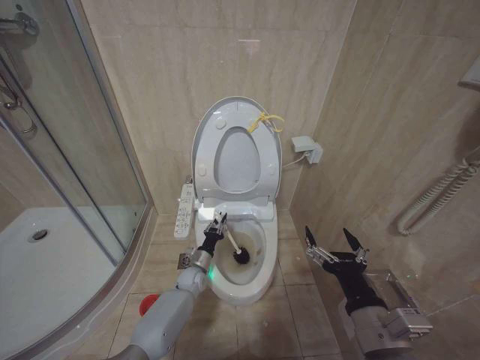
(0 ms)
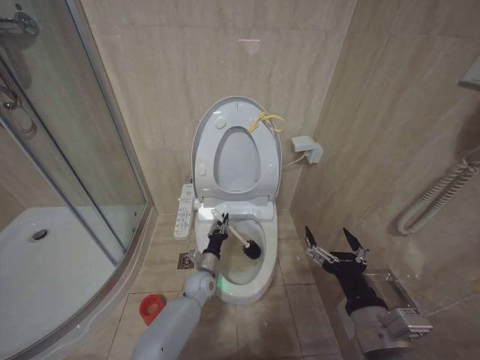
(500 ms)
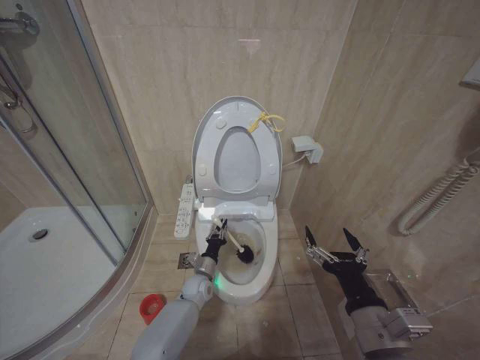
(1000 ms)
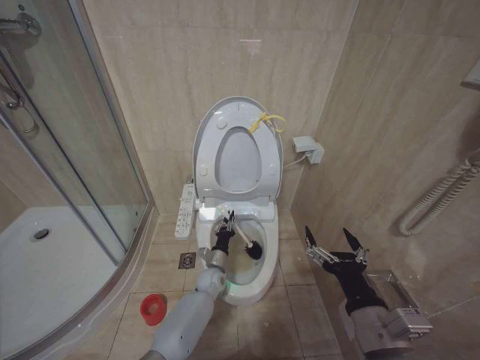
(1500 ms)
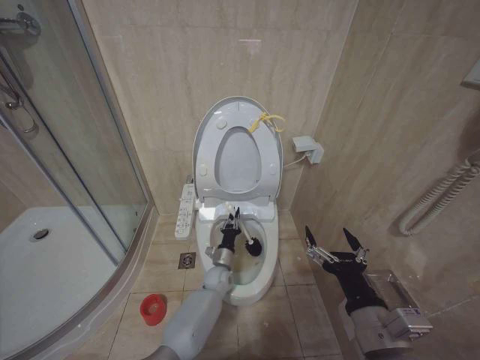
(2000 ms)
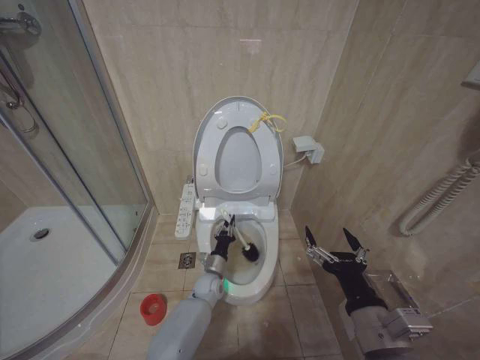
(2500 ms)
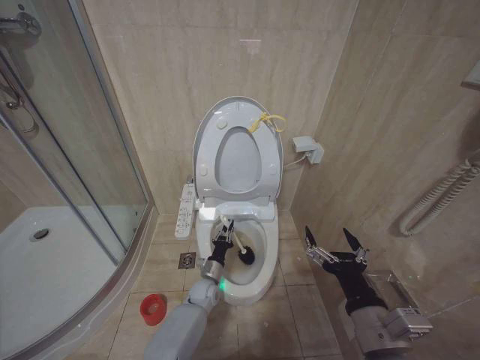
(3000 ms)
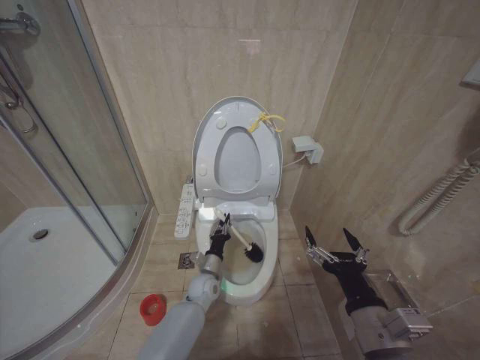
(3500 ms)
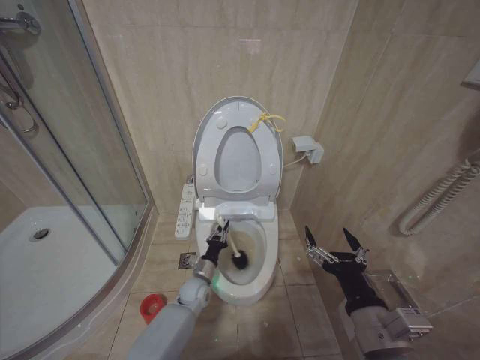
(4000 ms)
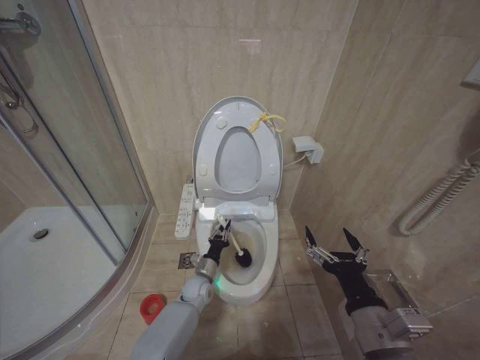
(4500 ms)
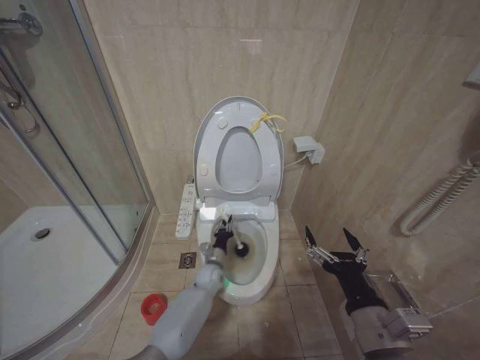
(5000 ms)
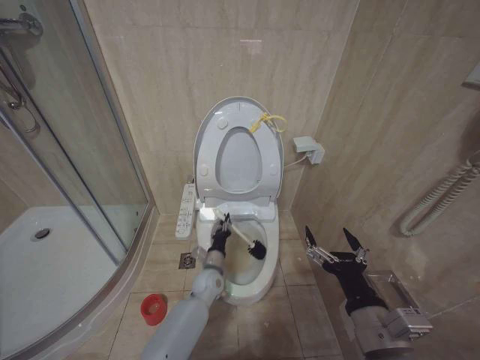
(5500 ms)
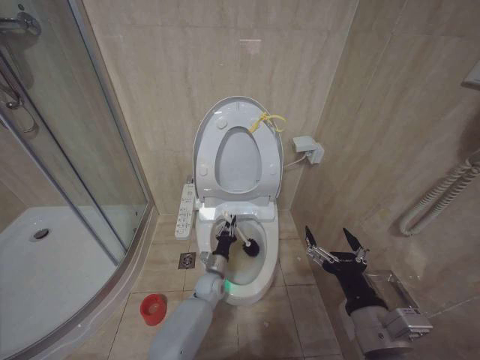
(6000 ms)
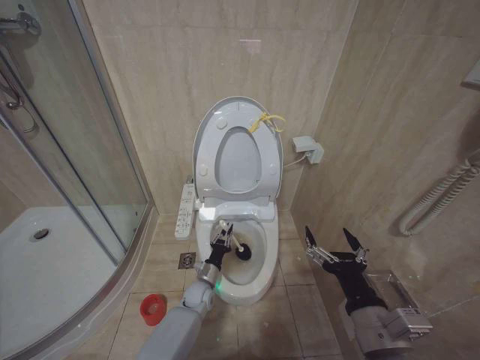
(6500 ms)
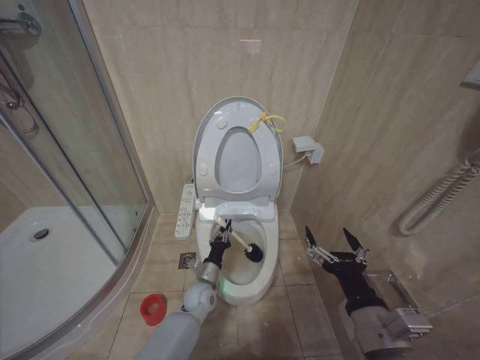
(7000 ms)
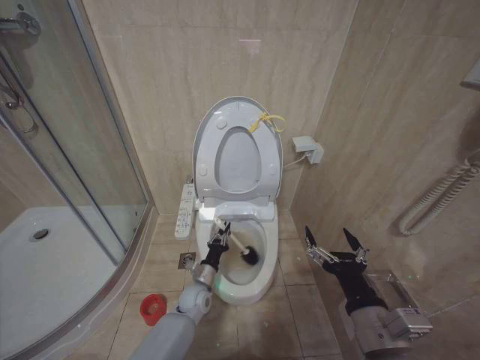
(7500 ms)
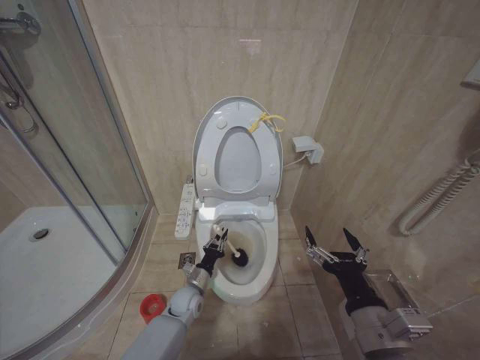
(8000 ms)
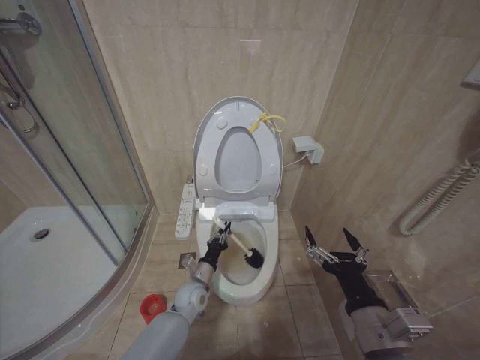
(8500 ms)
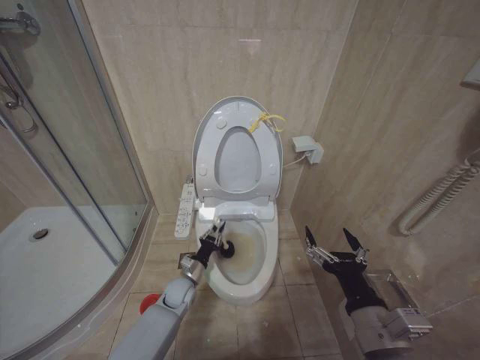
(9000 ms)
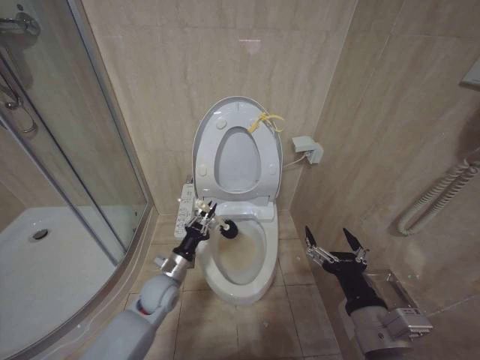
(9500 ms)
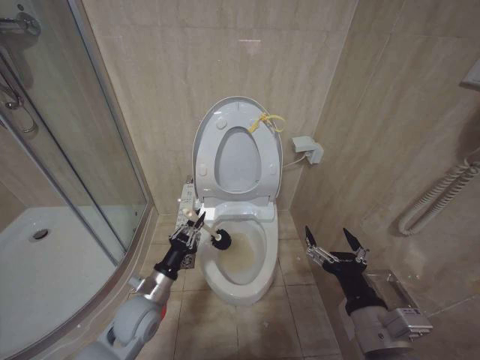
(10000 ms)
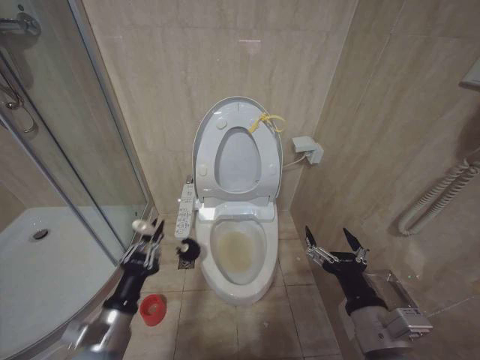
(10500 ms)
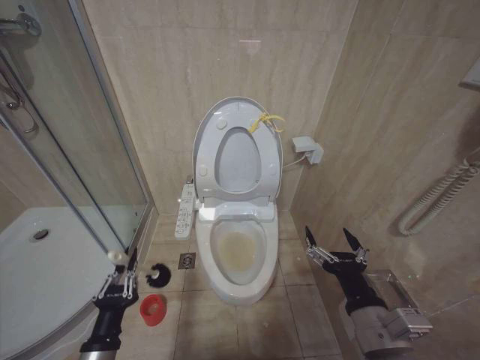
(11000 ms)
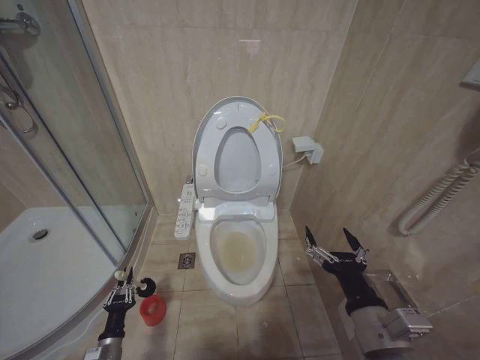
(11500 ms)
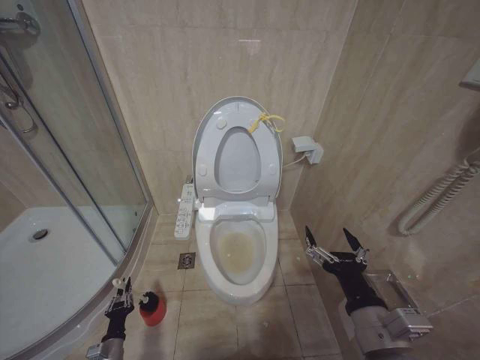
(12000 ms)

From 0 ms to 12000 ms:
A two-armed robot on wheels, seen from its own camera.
Task of the whole recording: Open the toilet lid, clean the toilet bowl with a toilet brush, close the toilet lid, and flush.
From 0 ms to 2000 ms: The left gripper heads to the right, covering about 10 cm.
From 2000 ms to 4000 ms: The left gripper moves to the left, some 5 cm.
From 4000 ms to 6000 ms: The left gripper goes upward and returns, about 5 cm each way.
From 6000 ms to 8000 ms: The left gripper changes place by roughly 5 cm.
From 8000 ms to 10000 ms: The left gripper travels upward, to the left and backward by approximately 20 cm.
From 10000 ms to 12000 ms: The left gripper heads downward and to the left, covering approximately 30 cm.

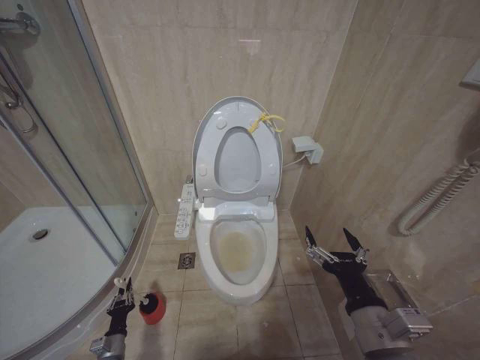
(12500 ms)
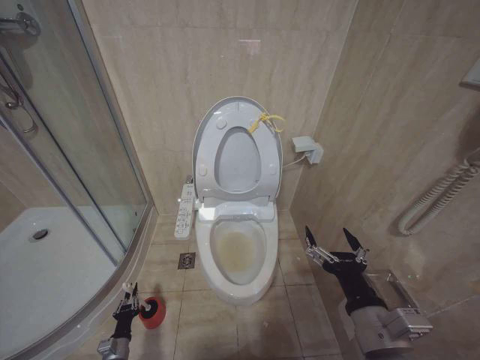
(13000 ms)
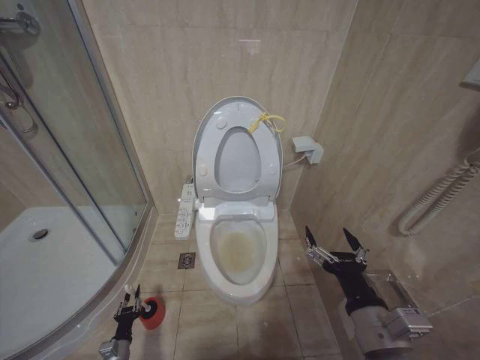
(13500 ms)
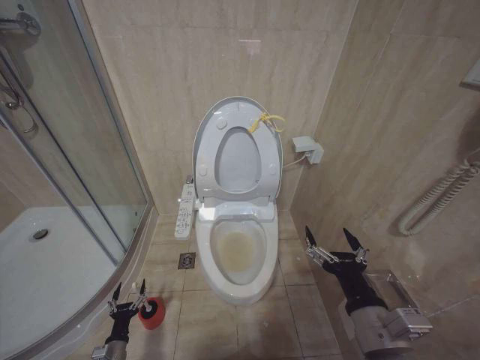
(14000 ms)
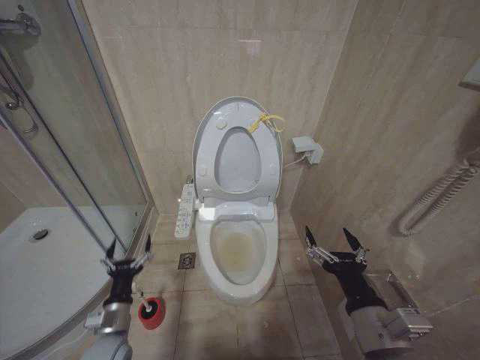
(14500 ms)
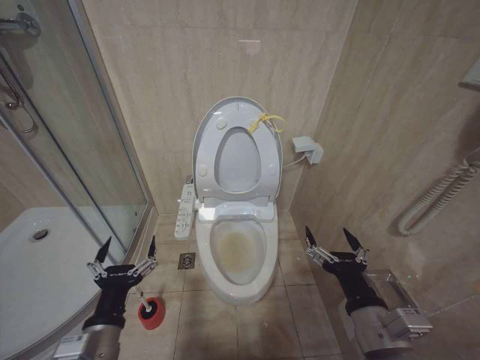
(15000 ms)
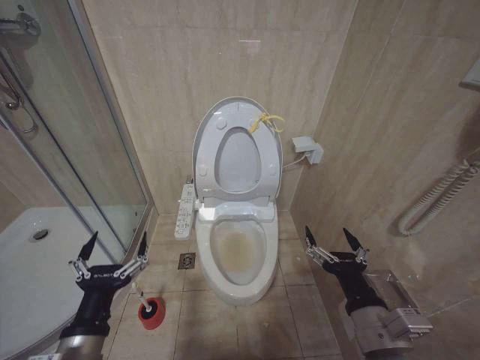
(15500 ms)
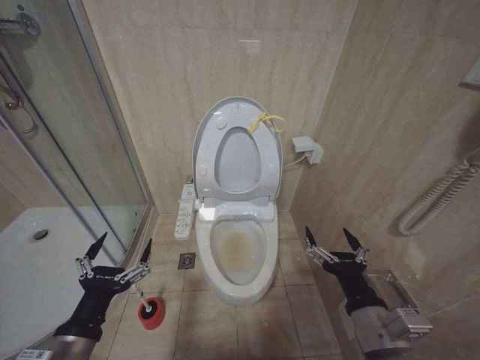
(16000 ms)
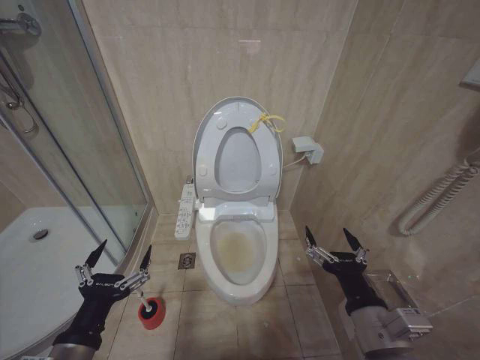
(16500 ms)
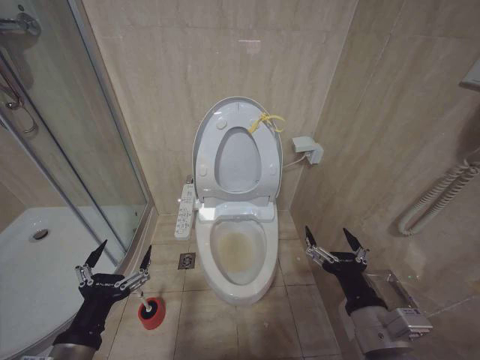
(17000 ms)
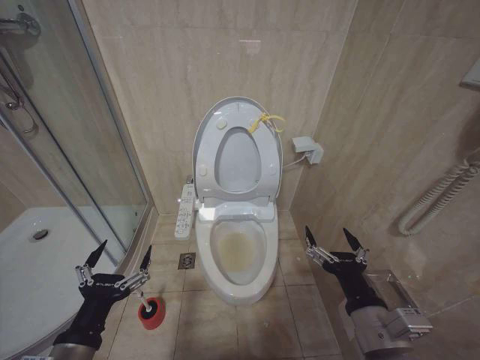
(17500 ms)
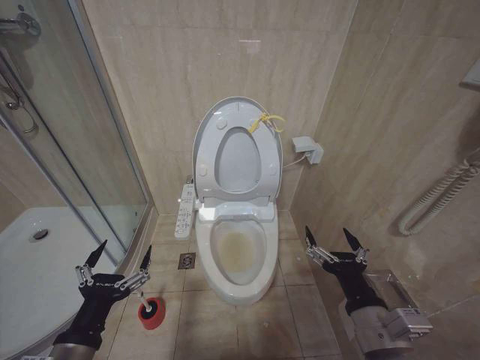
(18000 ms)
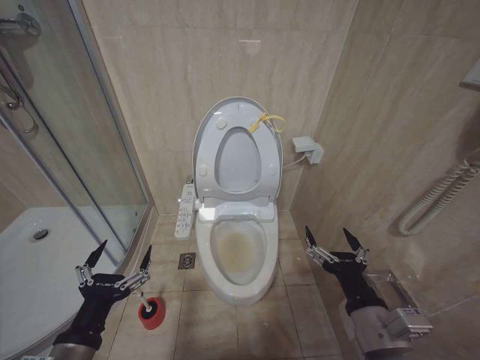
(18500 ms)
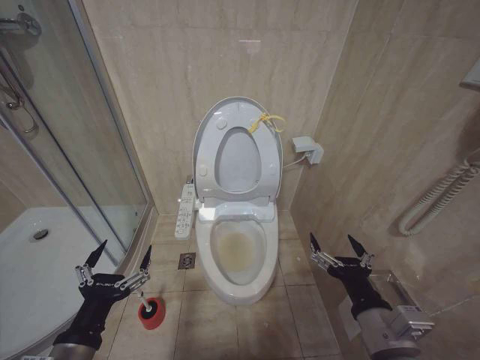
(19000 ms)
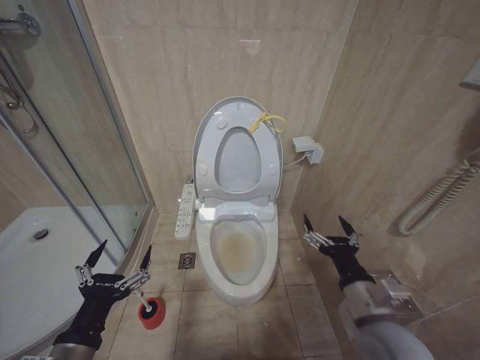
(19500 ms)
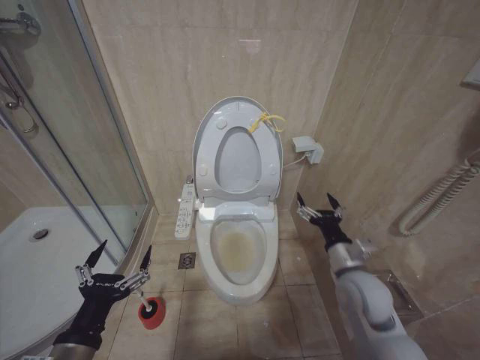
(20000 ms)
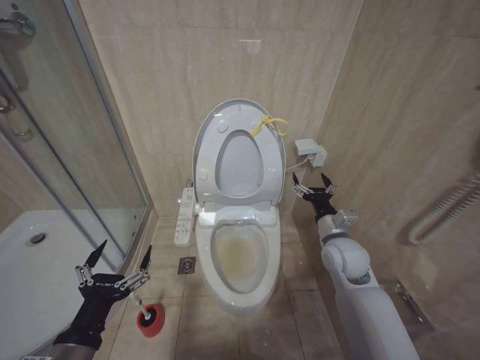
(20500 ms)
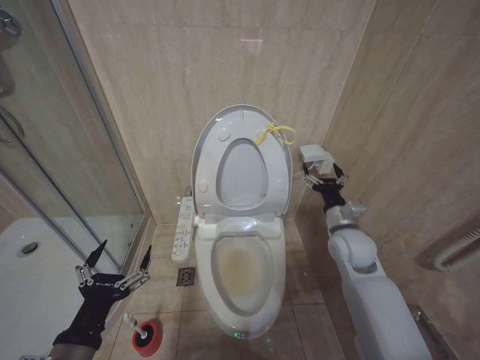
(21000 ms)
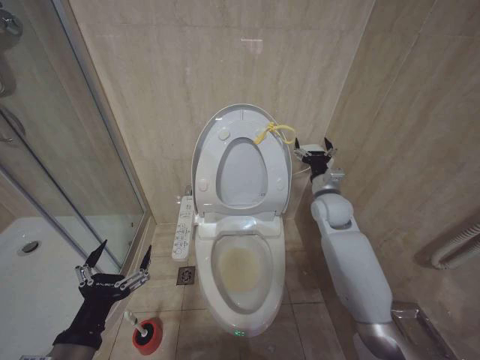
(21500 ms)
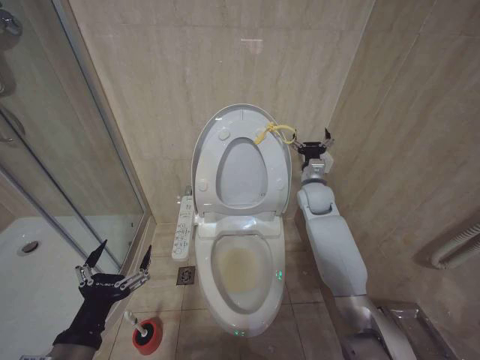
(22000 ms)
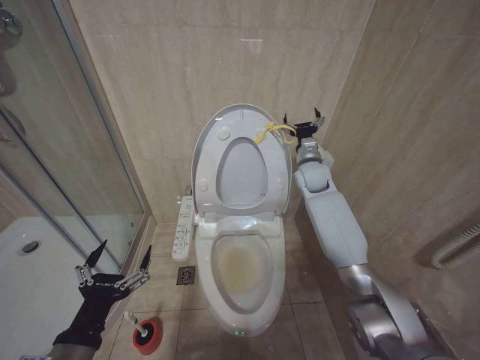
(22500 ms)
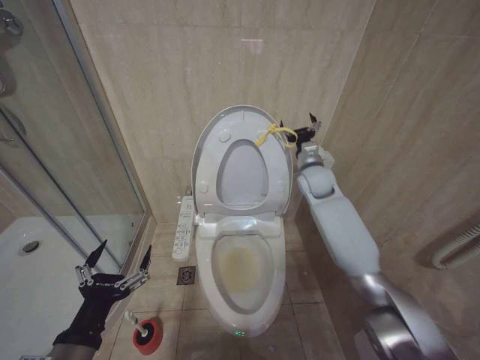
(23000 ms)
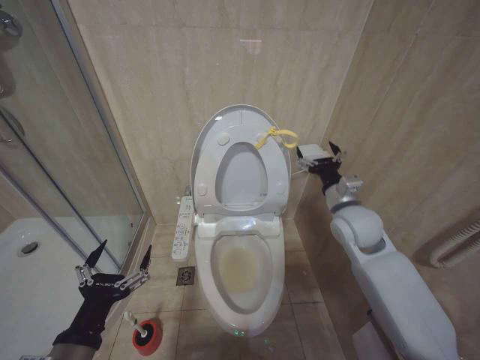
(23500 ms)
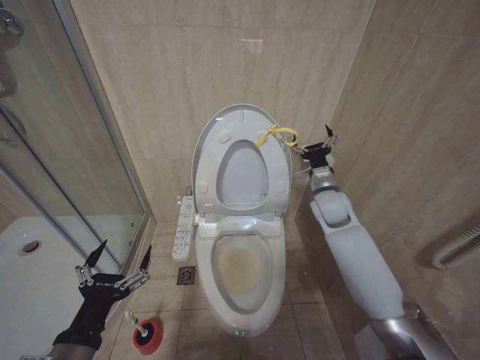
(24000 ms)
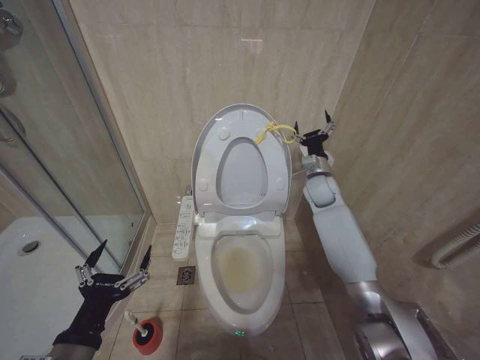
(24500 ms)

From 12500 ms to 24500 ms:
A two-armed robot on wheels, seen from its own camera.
Task of the whole recording: Open the toilet lid, clean the toilet bowl with a toilet brush, close the toilet lid, and flush.
From 12500 ms to 14500 ms: The left gripper moves upward, approximately 20 cm, and opens its fingers.
From 14500 ms to 16500 ms: The left gripper is displaced upward and backward by some 25 cm.
From 16500 ms to 18500 ms: The two grippers keep their place.
From 18500 ms to 20500 ms: The right gripper shifts approximately 20 cm forward.
From 20500 ms to 22500 ms: The right gripper travels forward and upward by approximately 20 cm.
From 22500 ms to 24500 ms: The right gripper travels backward and back again, approximately 15 cm each way.

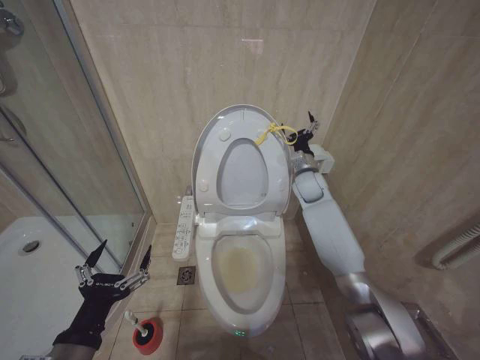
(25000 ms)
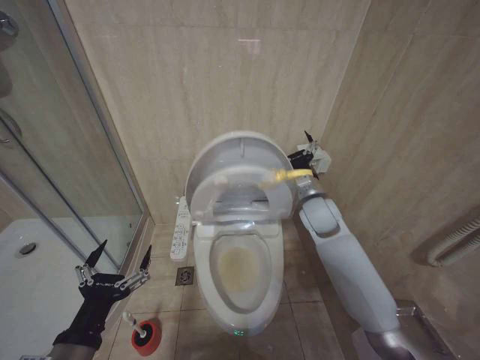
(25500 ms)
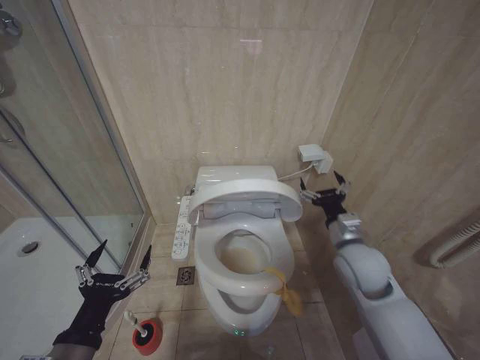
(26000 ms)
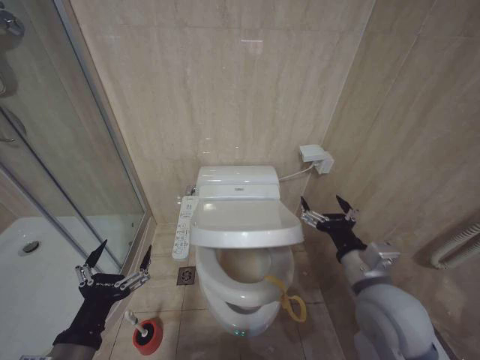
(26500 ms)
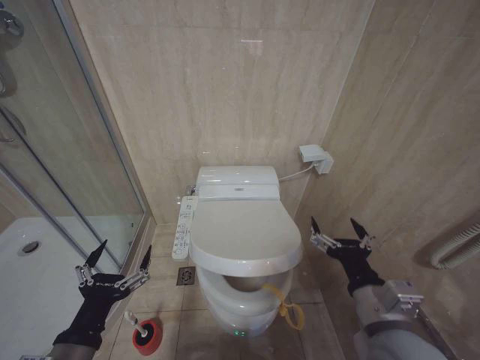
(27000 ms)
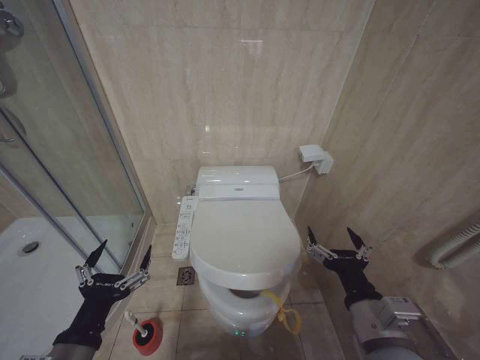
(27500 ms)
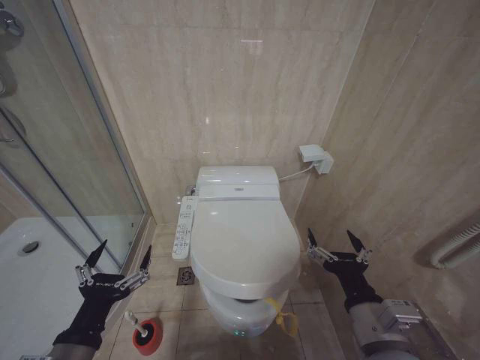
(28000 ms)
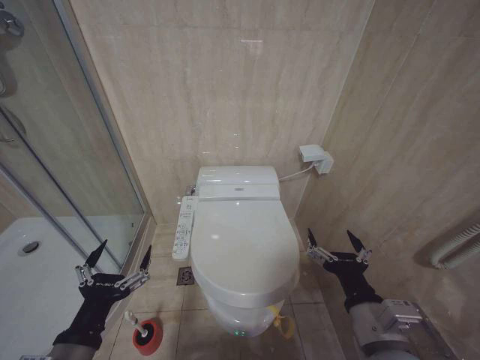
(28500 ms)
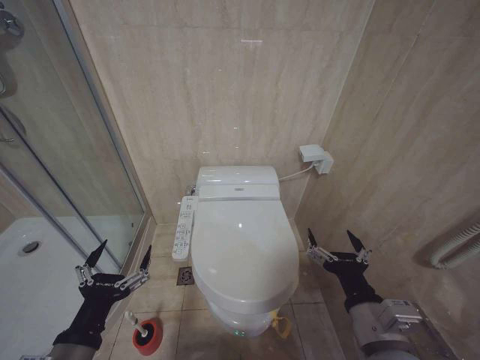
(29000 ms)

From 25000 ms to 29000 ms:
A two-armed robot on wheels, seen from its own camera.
Task of the whole recording: Open the toilet lid, clean the toilet bowl with a toilet brush, close the toilet lid, and flush.
From 25000 ms to 27000 ms: The right gripper moves backward, some 40 cm.
From 27000 ms to 29000 ms: The grippers stay close to where they were, moving slightly.
